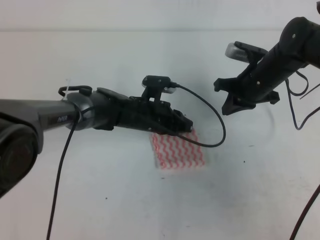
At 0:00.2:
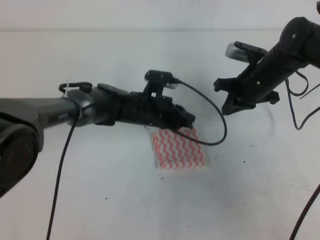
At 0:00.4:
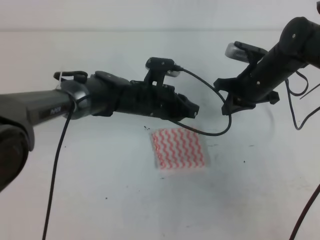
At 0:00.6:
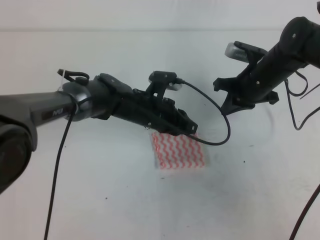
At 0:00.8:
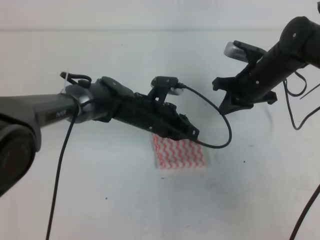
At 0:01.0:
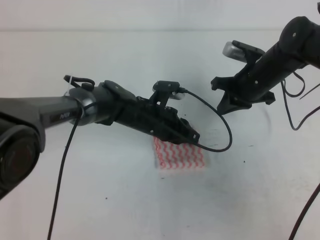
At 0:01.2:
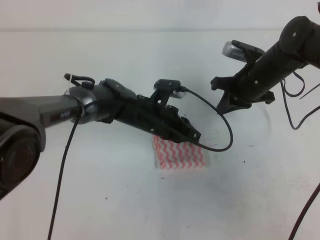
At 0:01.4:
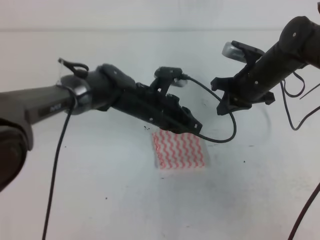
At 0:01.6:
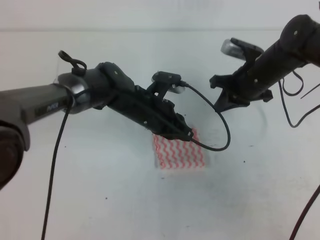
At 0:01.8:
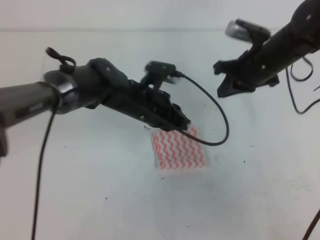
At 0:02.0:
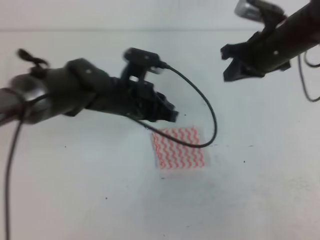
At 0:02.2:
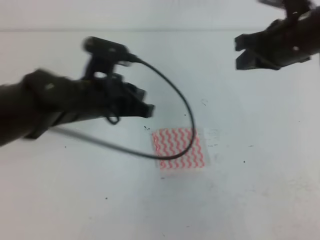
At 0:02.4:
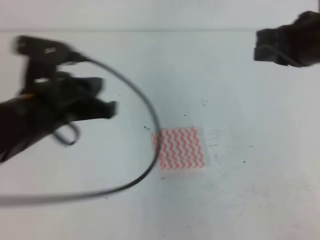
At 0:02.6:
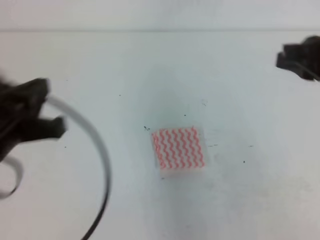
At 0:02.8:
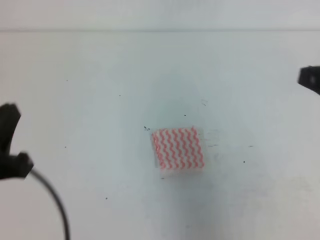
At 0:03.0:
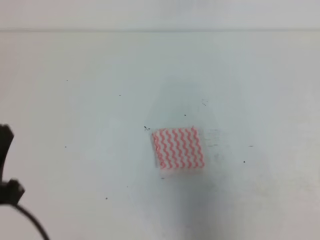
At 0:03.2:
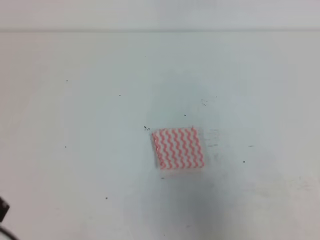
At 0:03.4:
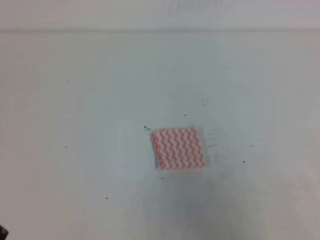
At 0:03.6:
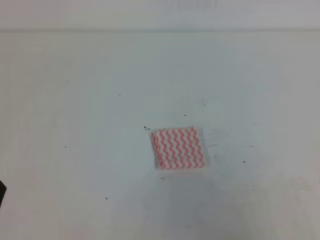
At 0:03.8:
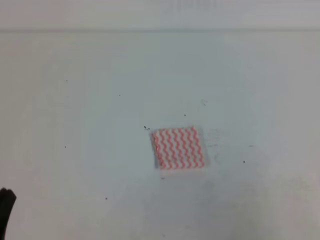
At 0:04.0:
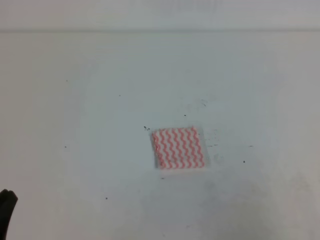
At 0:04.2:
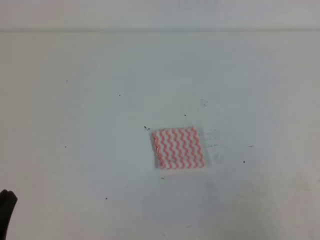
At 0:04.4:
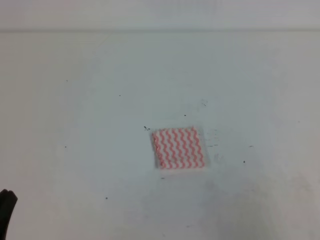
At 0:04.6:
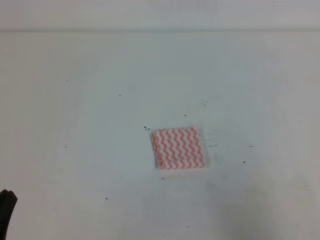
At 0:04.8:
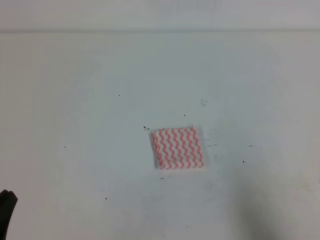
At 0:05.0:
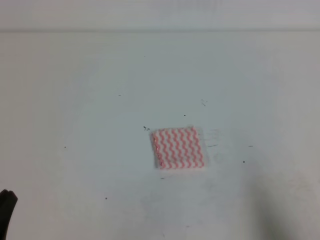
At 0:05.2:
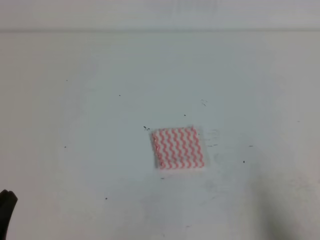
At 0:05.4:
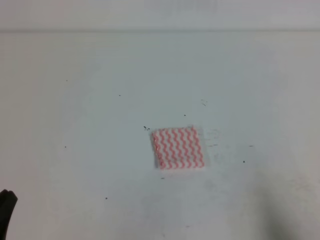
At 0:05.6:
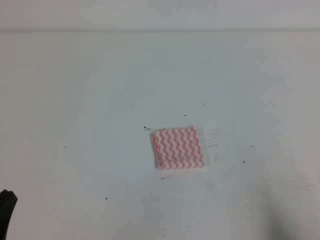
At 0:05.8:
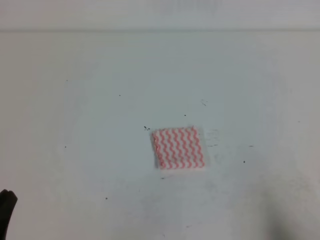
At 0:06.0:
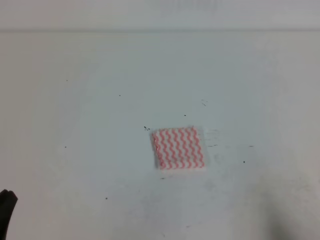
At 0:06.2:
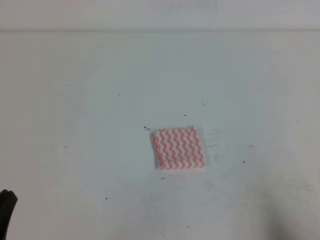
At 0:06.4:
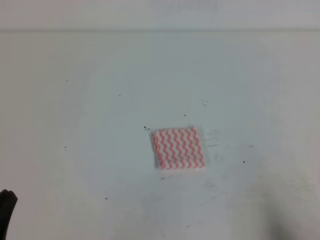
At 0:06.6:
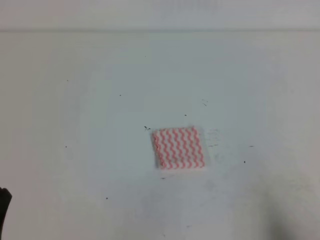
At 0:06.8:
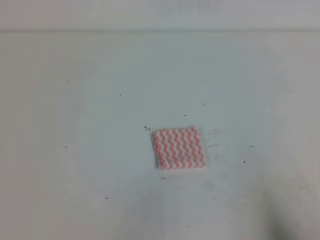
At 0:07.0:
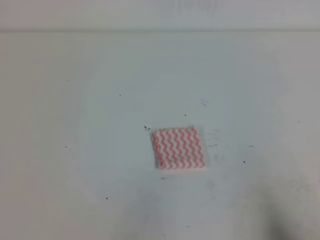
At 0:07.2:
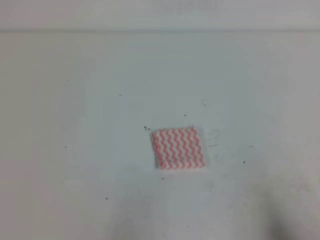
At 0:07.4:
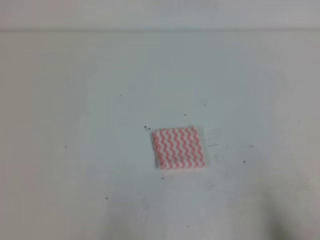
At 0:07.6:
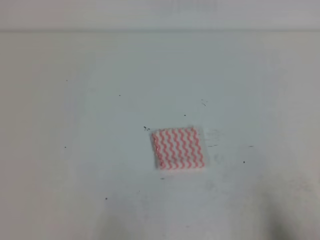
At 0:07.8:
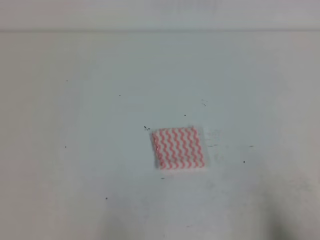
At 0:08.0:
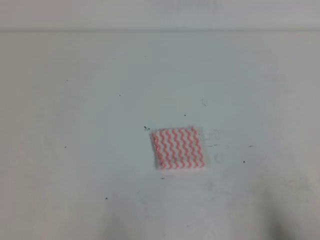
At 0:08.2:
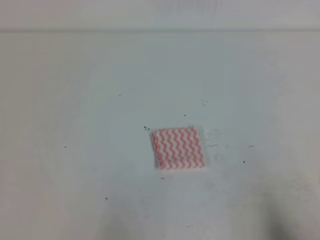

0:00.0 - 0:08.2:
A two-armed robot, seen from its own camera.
Step, 0:00.0 - 0:08.2: Fold the towel.
0:00.0 - 0:01.6: The left gripper ends up some 5 cm from where it was.
0:01.6 - 0:03.2: The left gripper is displaced backward and to the left by approximately 35 cm. The right gripper shifts roughly 30 cm backward.
0:03.2 - 0:05.0: The left gripper travels downward by approximately 5 cm, while the right gripper heads downward and backward, covering roughly 15 cm.
